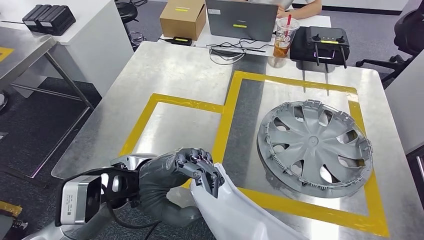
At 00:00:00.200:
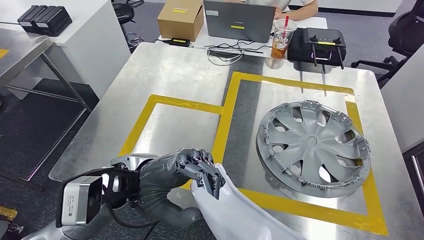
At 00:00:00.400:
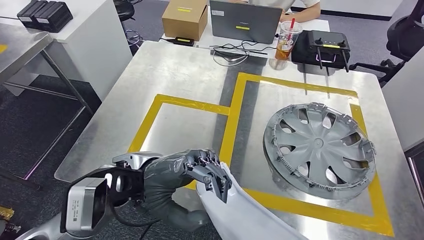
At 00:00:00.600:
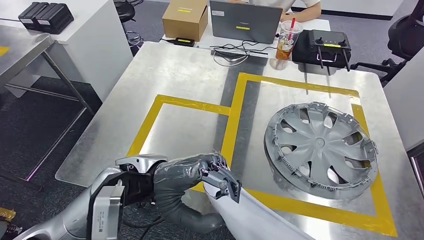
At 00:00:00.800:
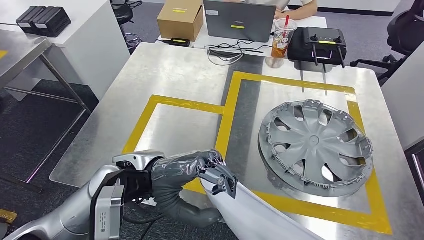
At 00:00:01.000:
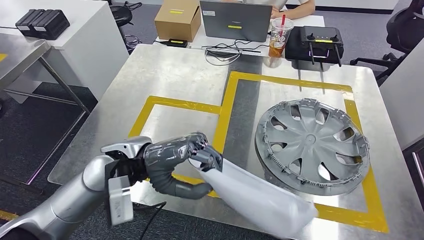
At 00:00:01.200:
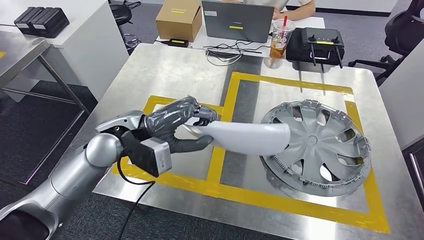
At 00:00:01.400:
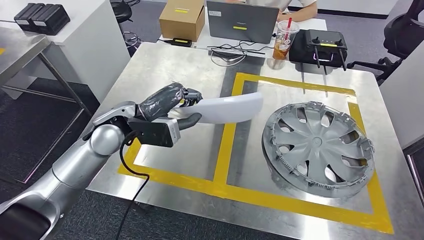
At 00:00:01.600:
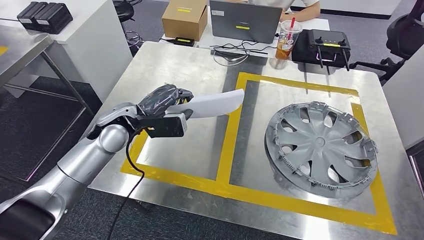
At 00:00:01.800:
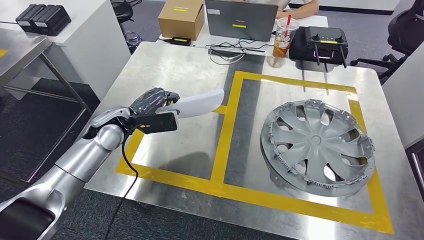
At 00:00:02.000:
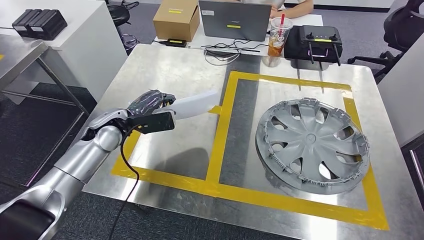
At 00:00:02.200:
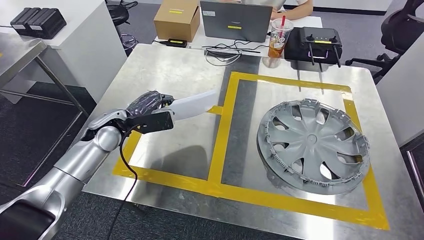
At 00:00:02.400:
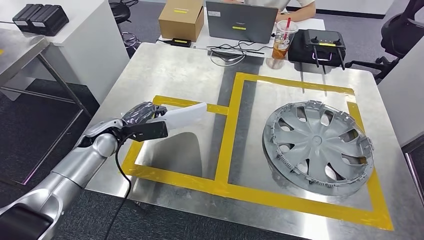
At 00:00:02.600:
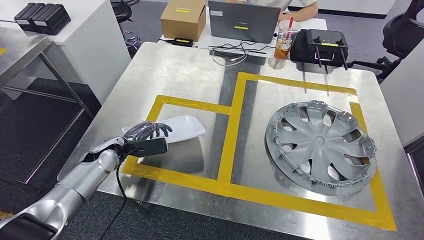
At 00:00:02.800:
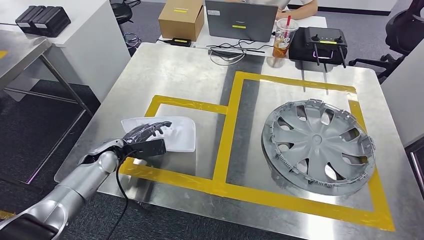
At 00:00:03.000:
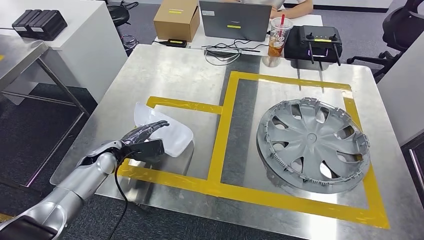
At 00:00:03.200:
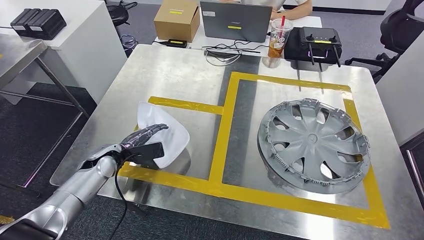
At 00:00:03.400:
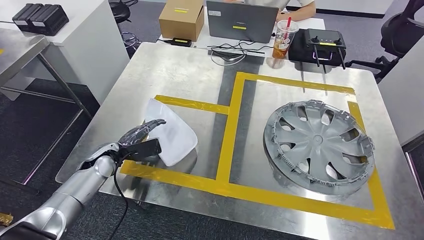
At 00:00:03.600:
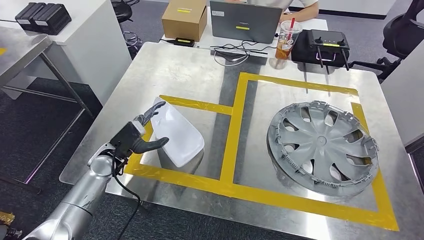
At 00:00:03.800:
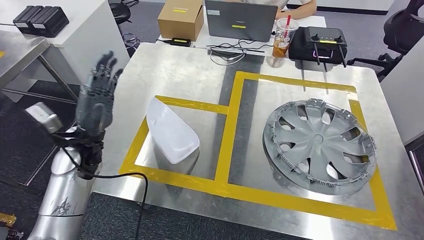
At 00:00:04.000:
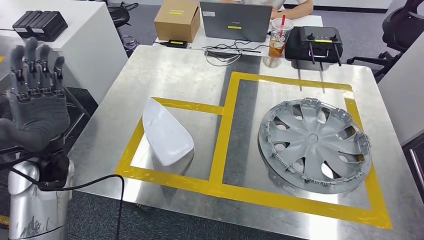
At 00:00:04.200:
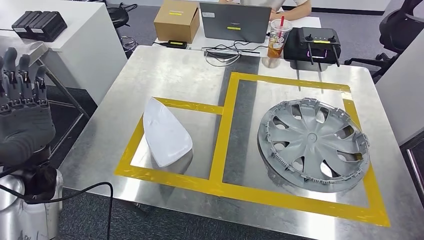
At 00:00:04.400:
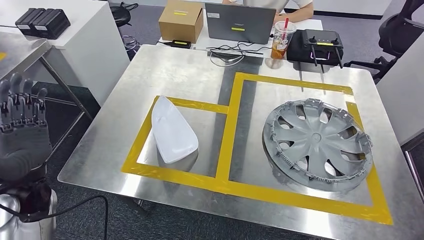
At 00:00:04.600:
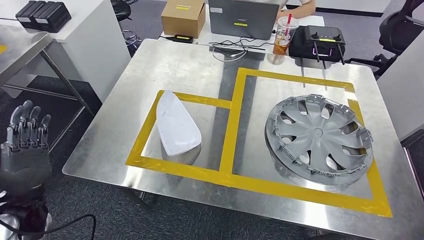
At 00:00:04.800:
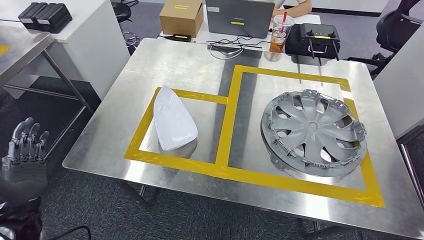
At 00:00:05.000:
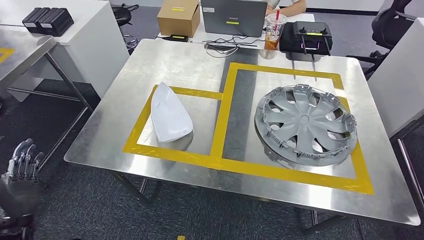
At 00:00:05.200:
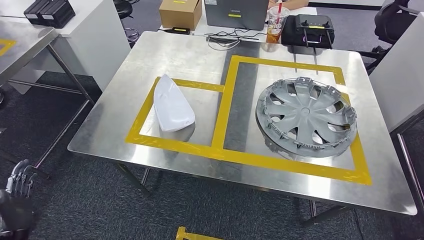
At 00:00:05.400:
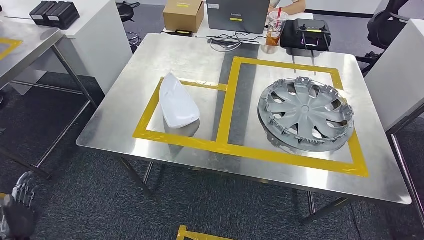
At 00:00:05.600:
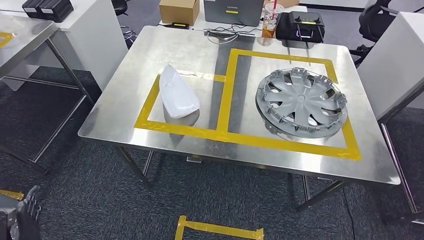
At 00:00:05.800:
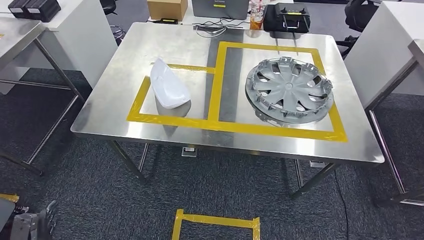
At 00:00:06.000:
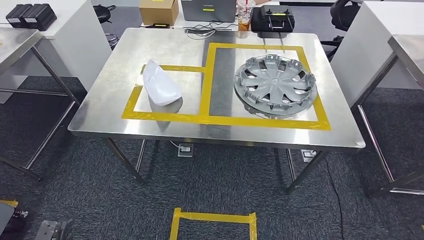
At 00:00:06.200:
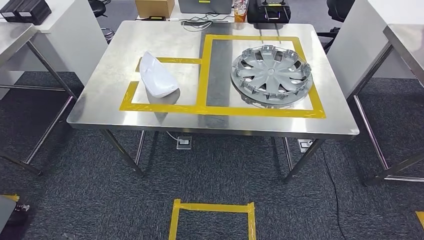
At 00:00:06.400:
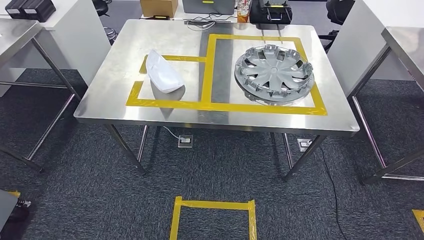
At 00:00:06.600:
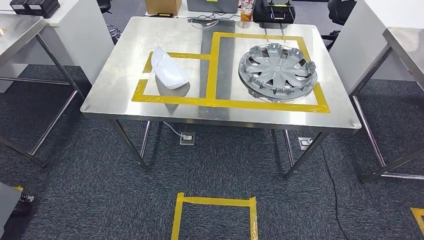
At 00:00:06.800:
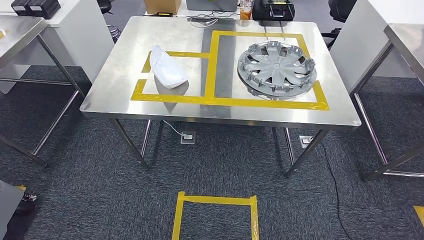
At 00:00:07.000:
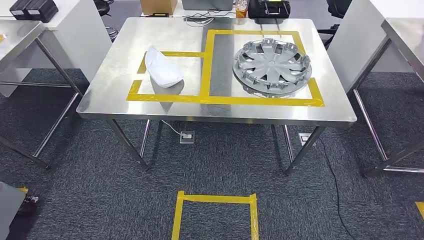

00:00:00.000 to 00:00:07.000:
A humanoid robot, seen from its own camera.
Step, 00:00:00.000 to 00:00:03.600: Insert the small component into the corresponding slot on the workbench.
Step, 00:00:04.000 to 00:00:06.800: Return to the initial position at the workbench.
